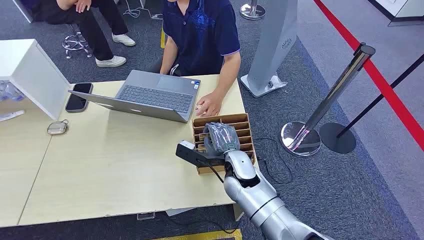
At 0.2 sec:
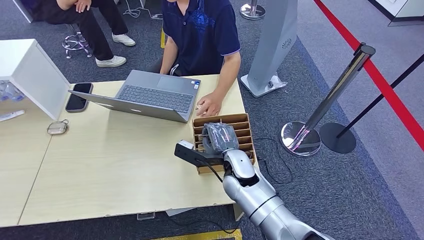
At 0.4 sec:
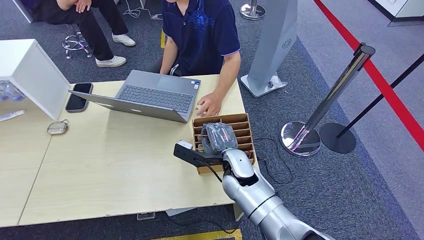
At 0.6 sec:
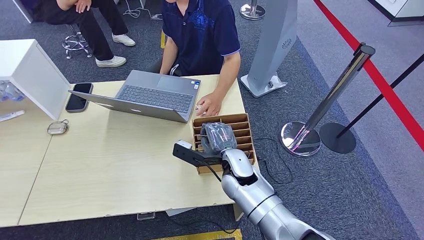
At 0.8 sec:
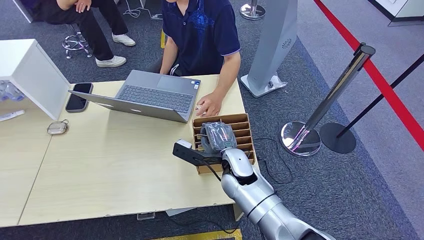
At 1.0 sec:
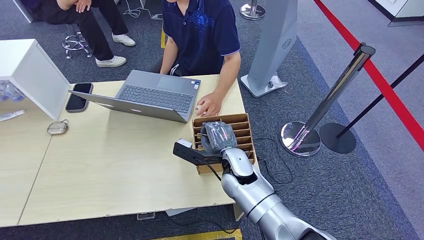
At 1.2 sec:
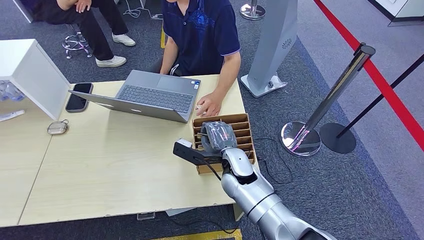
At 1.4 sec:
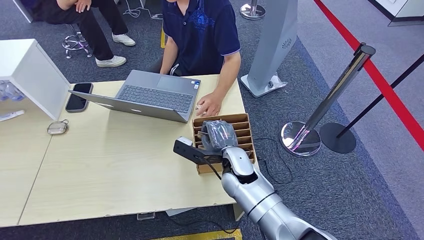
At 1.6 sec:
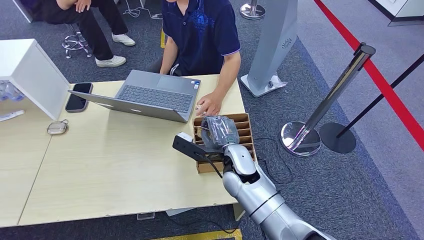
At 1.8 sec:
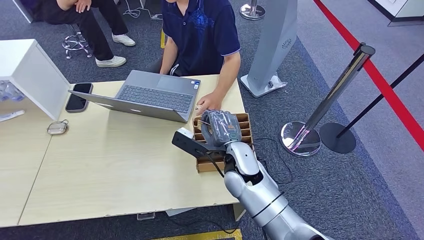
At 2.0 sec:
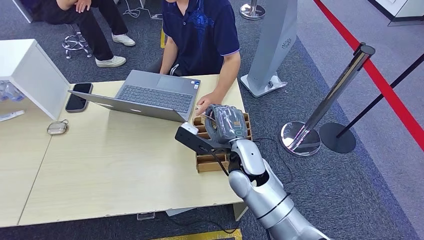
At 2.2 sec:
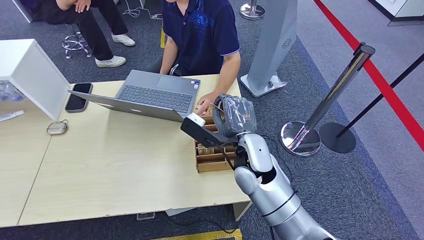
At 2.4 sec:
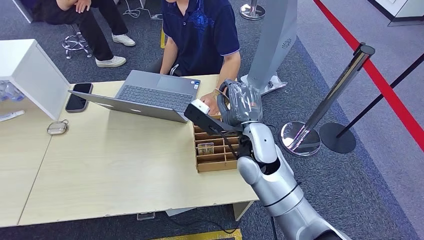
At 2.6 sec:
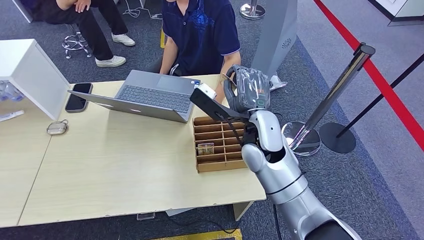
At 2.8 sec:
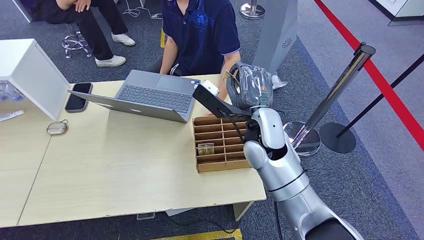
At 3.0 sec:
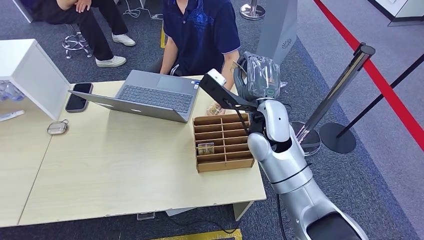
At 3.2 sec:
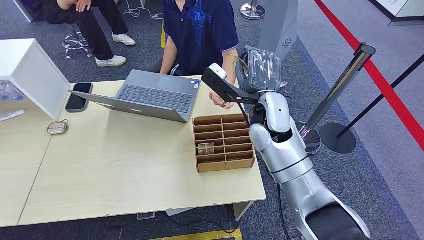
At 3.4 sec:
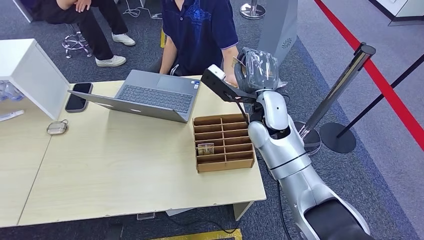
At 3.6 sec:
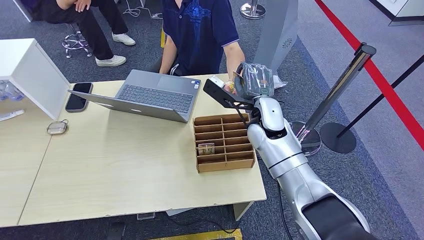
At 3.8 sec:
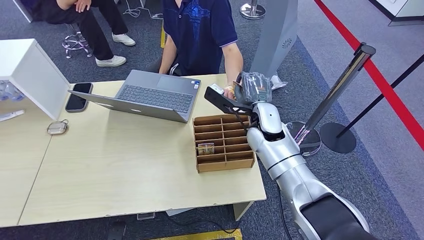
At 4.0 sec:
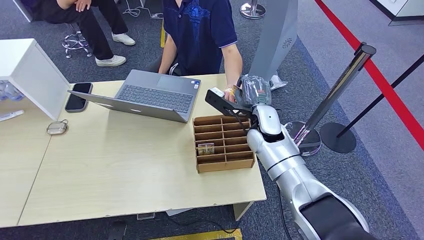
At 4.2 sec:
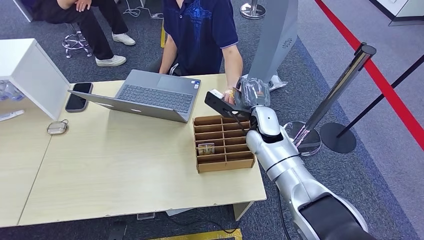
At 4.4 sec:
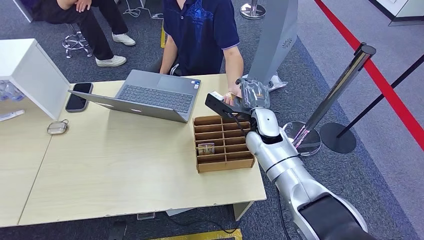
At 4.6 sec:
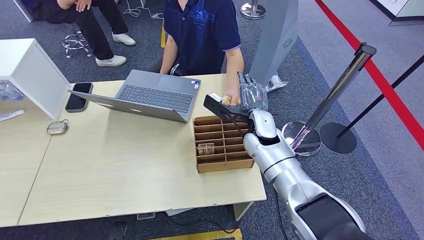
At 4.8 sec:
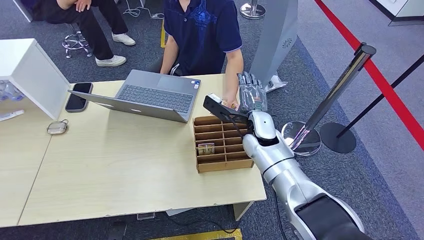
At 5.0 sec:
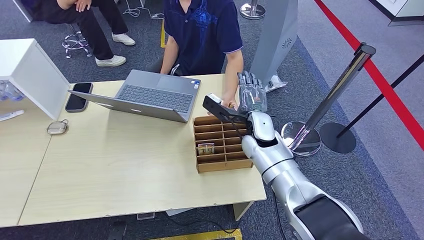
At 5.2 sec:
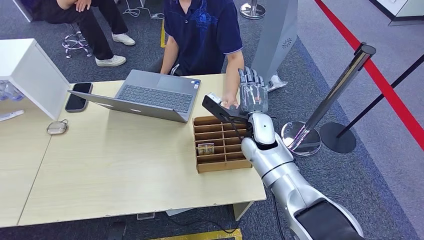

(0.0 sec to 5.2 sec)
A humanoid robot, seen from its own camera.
Step, 0.0 sec - 2.0 sec: Pick up the key card from the card box.
Step, 2.6 sec - 5.2 sec: Hand the key card to the target.
1.8 sec - 3.4 sec: The right hand is displaced upward, forward and to the right by approximately 15 cm.
3.4 sec - 5.2 sec: The right hand shifts some 10 cm downward.

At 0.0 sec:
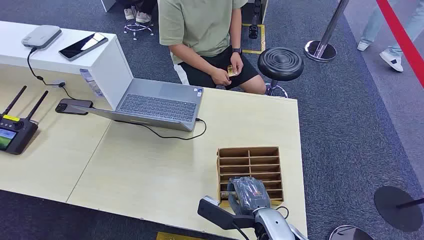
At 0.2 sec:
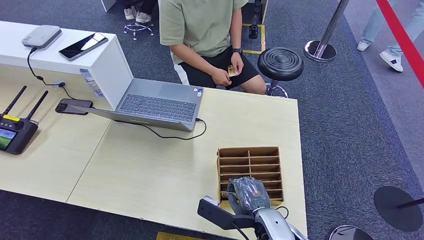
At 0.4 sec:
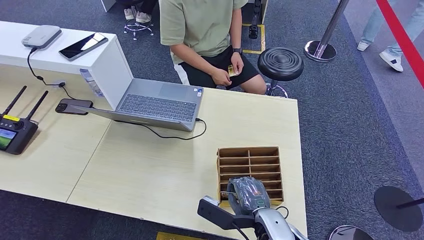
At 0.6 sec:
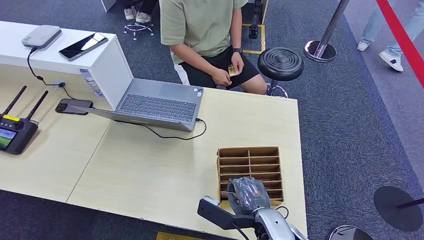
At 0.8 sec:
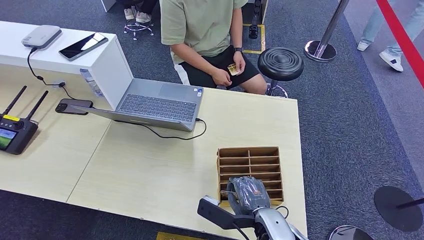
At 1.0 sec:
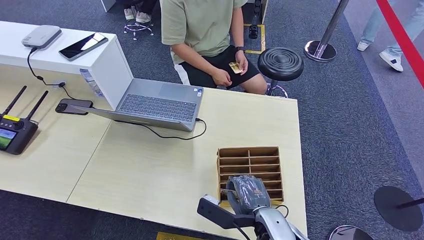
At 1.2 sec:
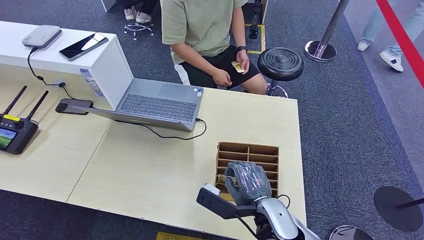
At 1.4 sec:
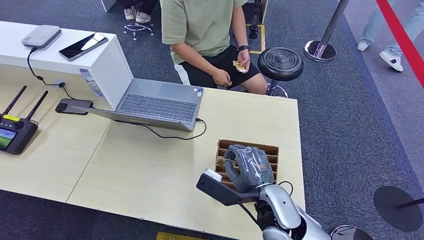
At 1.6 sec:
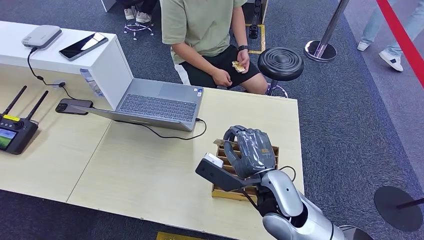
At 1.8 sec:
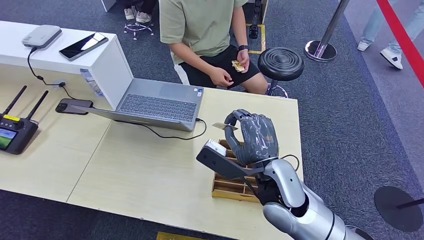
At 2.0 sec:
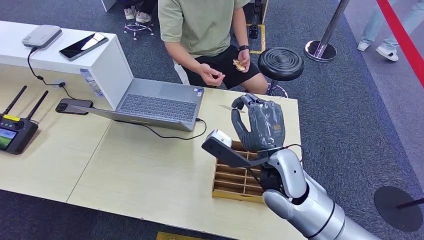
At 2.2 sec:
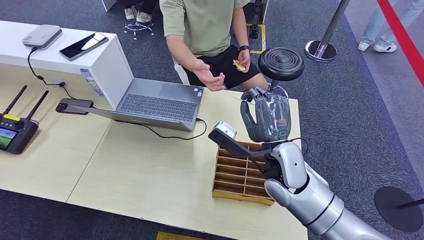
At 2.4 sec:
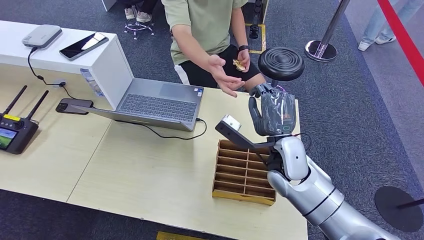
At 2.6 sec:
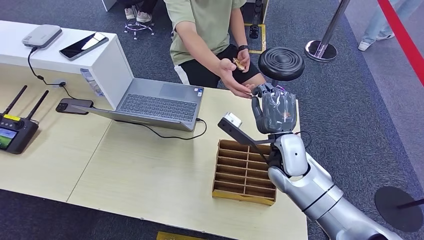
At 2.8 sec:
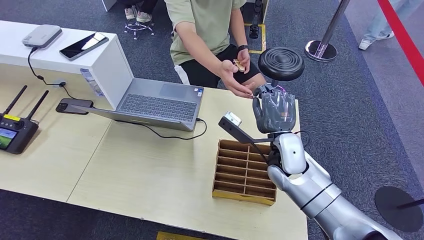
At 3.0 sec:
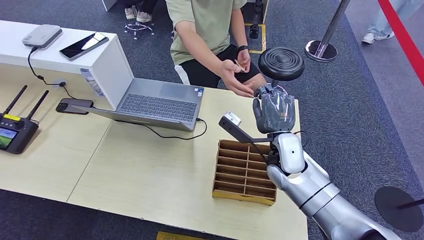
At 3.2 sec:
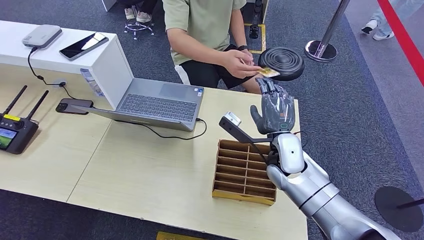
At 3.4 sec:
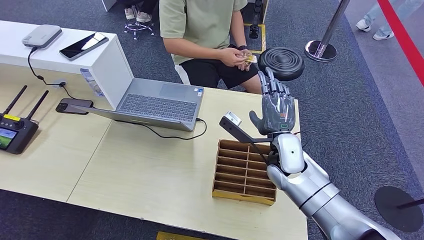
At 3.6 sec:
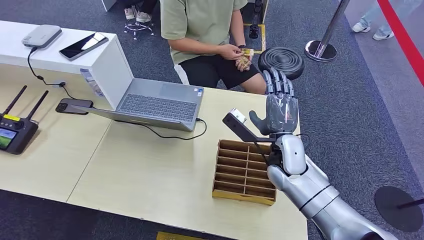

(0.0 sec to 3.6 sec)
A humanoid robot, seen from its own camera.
Step, 0.0 sec - 1.8 sec: Pick up the key card from the card box.
Step, 2.2 sec - 3.4 sec: Hand the key card to the target.
1.8 sec - 3.6 sec: The right hand goes about 10 cm forward.
